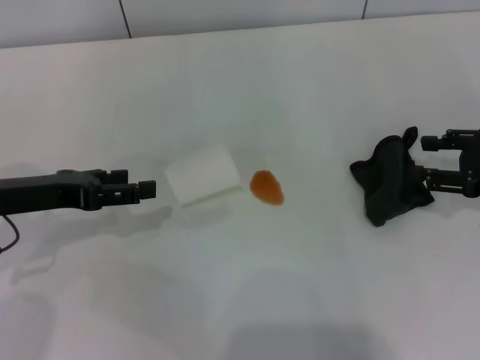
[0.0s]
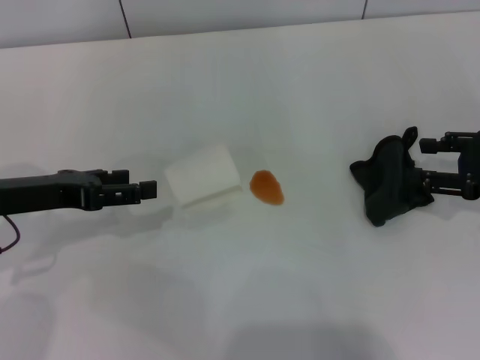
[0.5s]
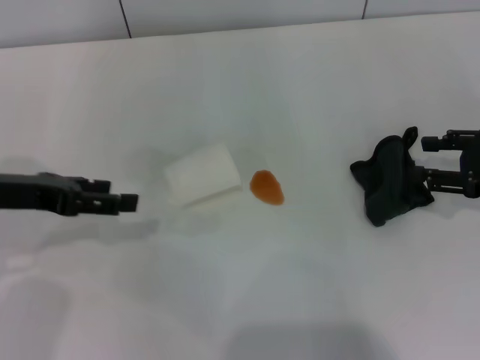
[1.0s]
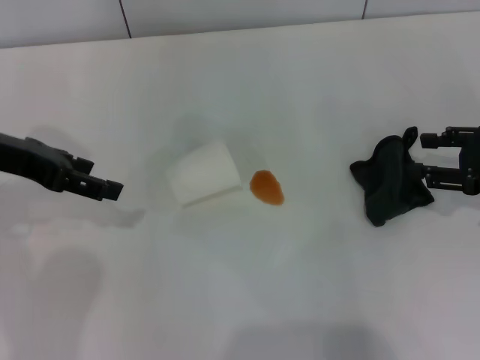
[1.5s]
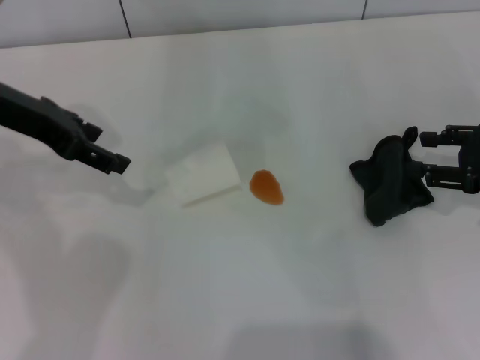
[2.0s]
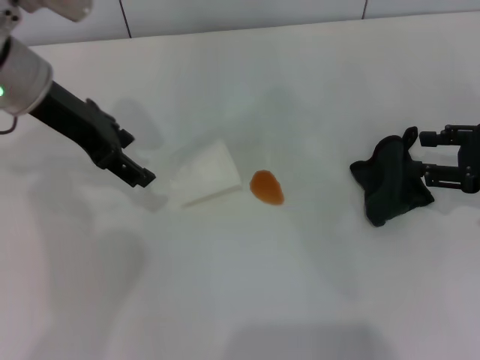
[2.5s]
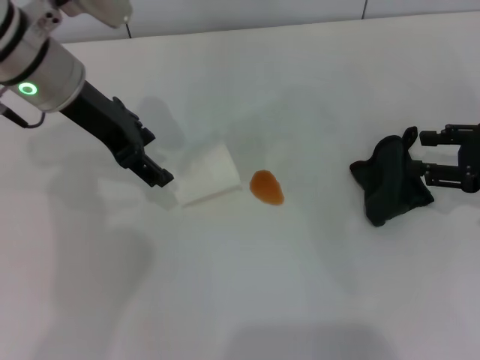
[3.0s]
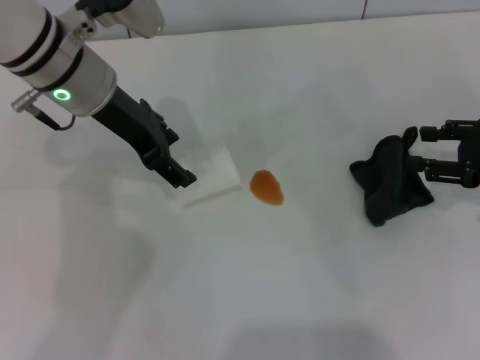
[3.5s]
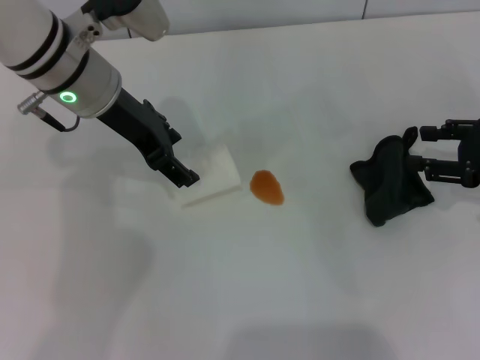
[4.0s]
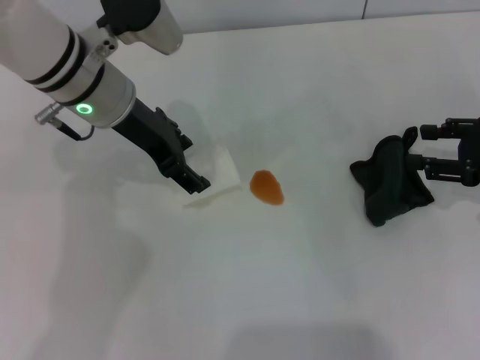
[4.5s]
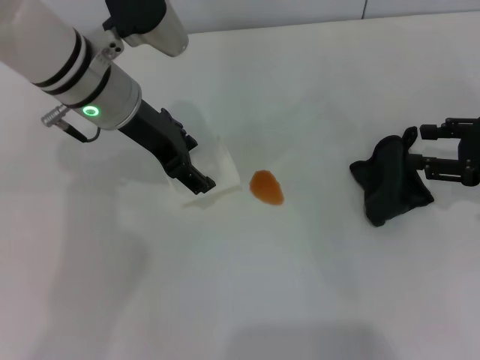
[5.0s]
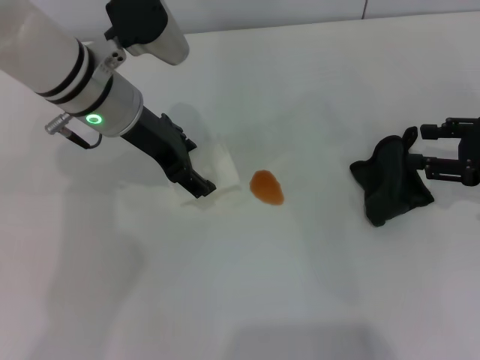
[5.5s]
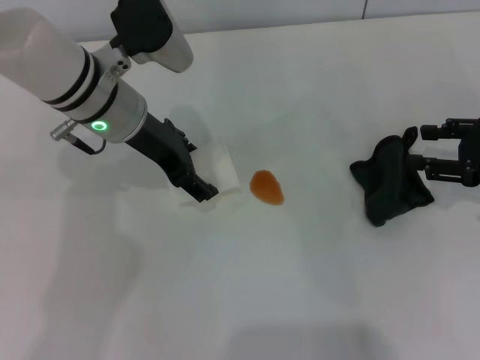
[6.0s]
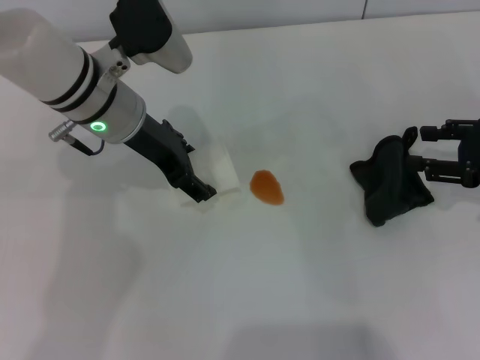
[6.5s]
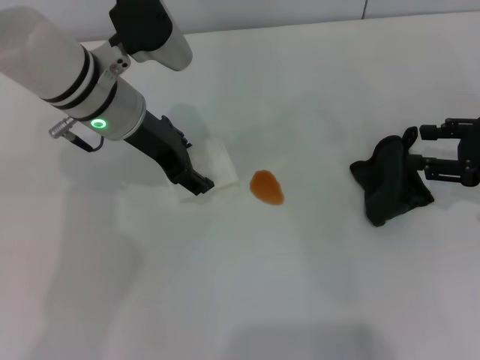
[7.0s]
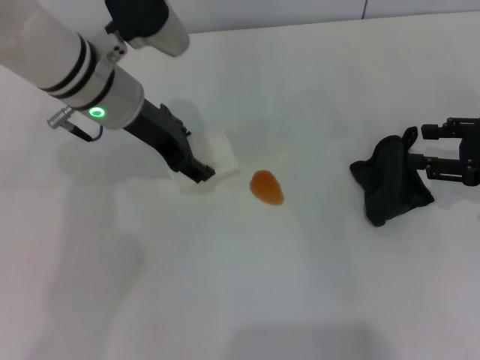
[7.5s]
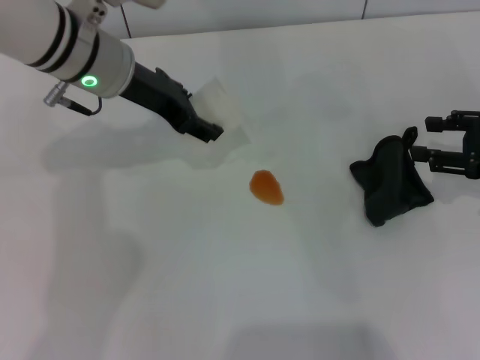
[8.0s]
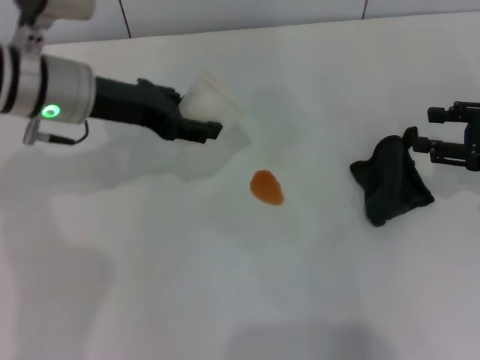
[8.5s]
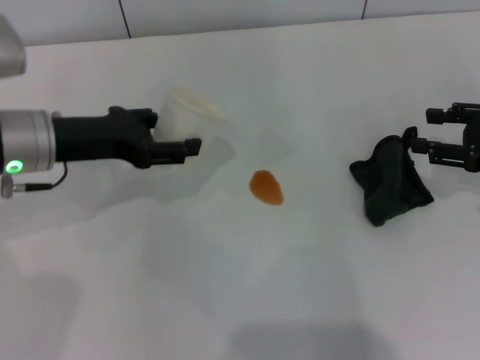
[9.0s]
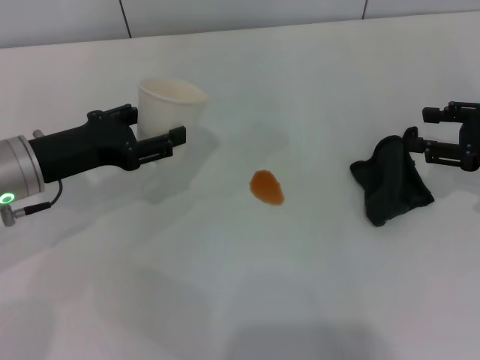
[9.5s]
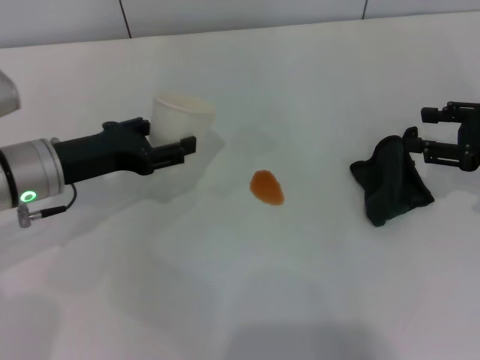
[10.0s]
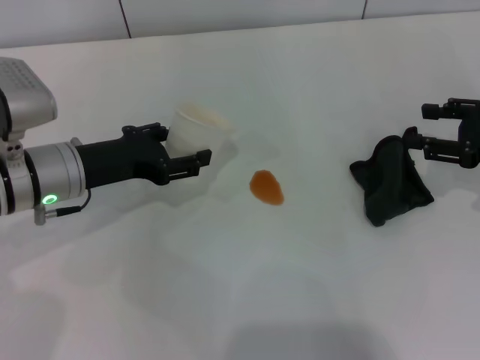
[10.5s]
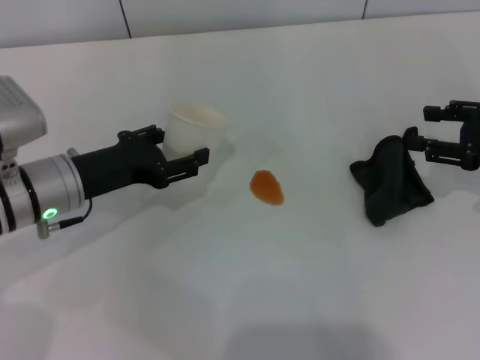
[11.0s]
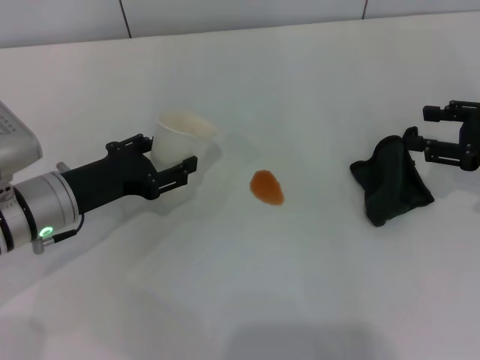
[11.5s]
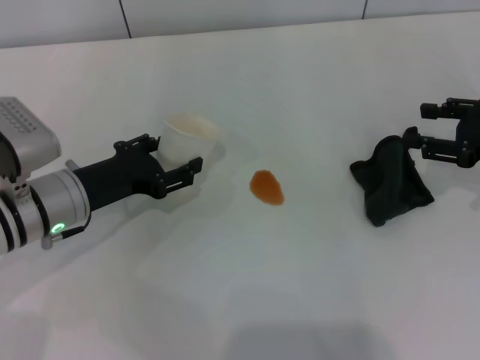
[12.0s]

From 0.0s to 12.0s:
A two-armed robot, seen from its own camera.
Step, from 0.0s to 6.5s: Grasp the paper cup with the left gripper.
From 0.0s to 2.0s: The left gripper shifts some 10 cm upward and forward.
From 2.0s to 4.0s: The left gripper travels to the right by some 10 cm.
From 4.0s to 6.0s: The grippers move only a little.
From 6.0s to 8.0s: The left gripper closes.
From 8.0s to 10.0s: The left gripper shifts some 15 cm to the left, downward and backward.
From 10.0s to 12.0s: The grippers move only a little.

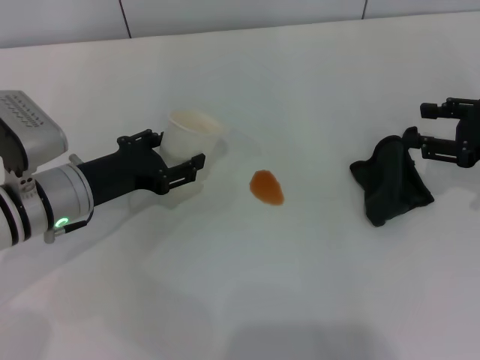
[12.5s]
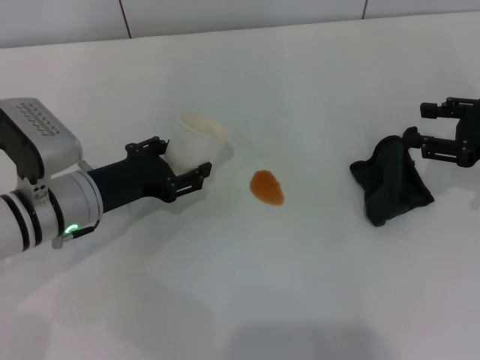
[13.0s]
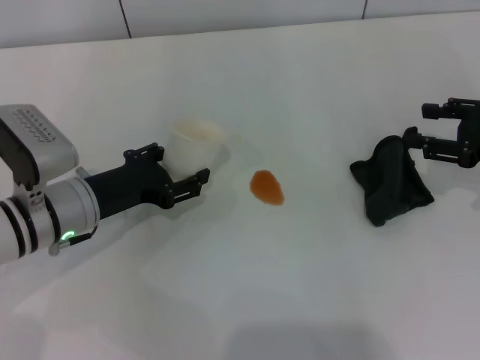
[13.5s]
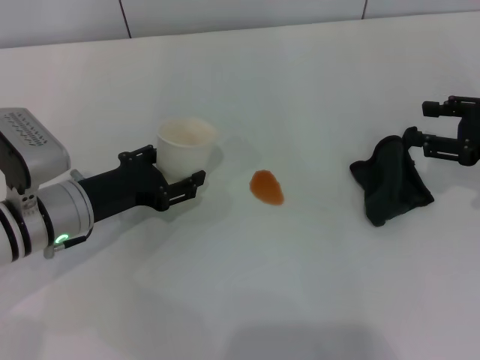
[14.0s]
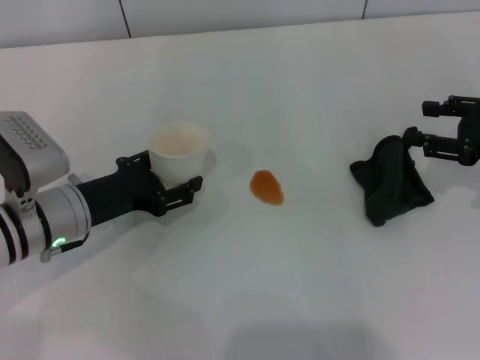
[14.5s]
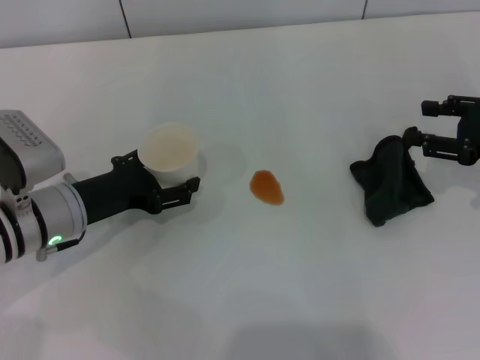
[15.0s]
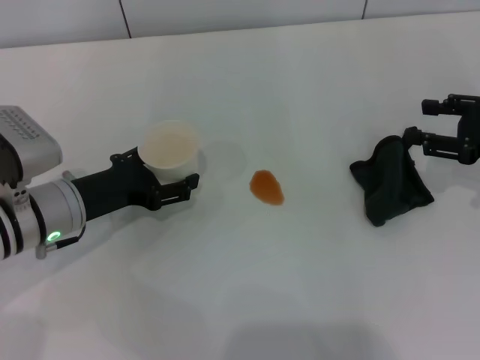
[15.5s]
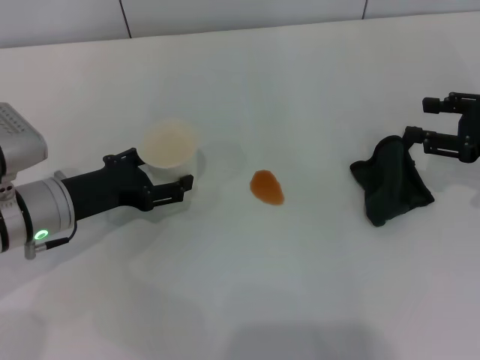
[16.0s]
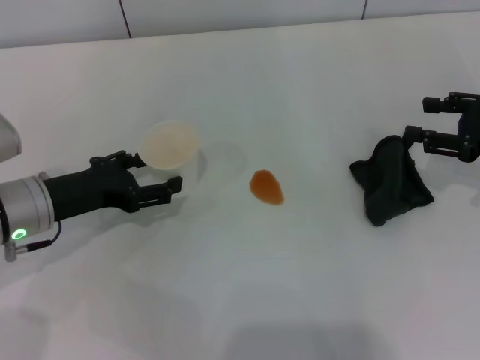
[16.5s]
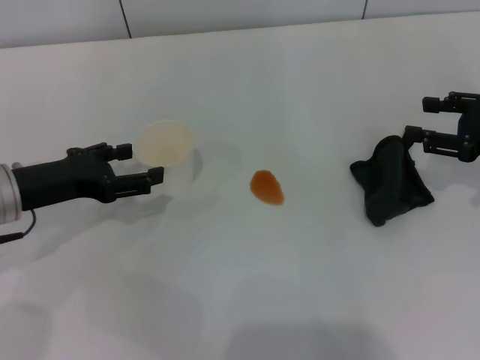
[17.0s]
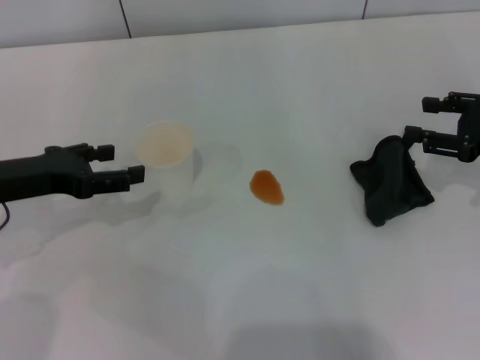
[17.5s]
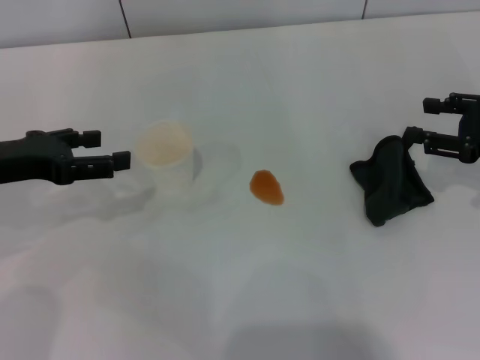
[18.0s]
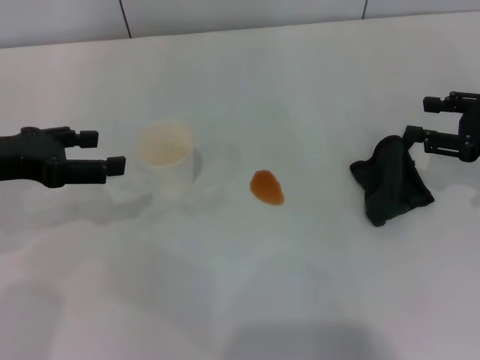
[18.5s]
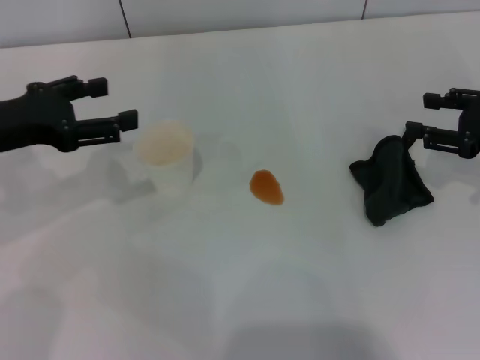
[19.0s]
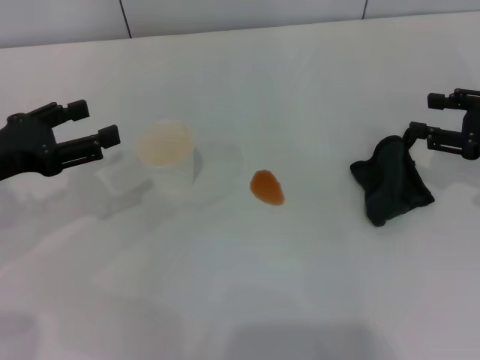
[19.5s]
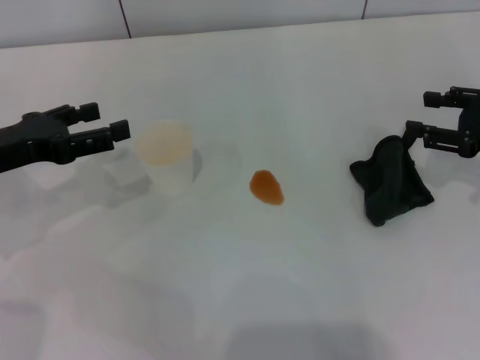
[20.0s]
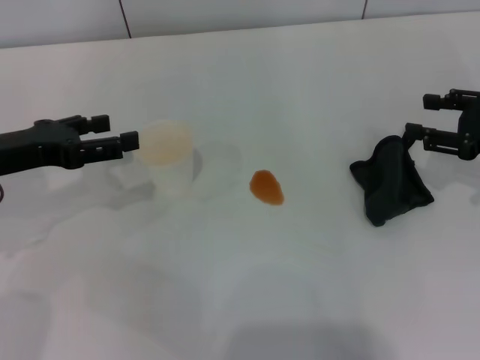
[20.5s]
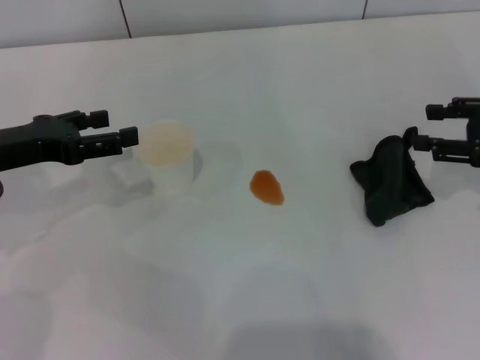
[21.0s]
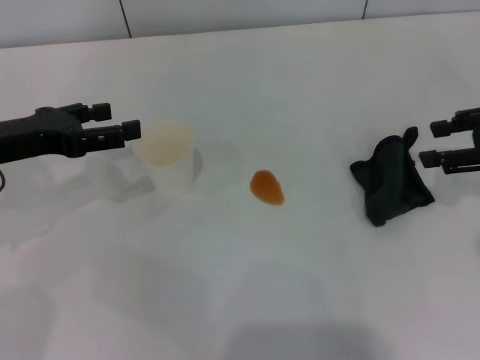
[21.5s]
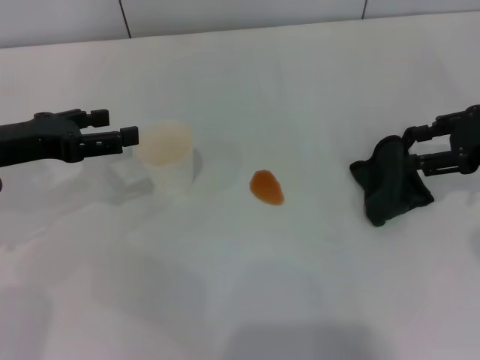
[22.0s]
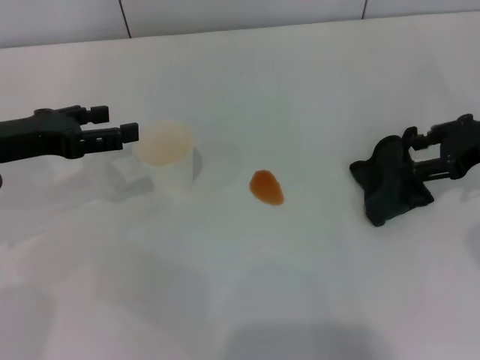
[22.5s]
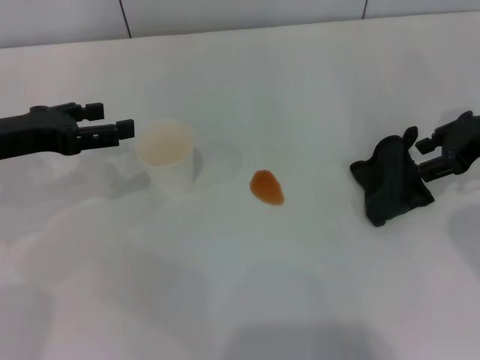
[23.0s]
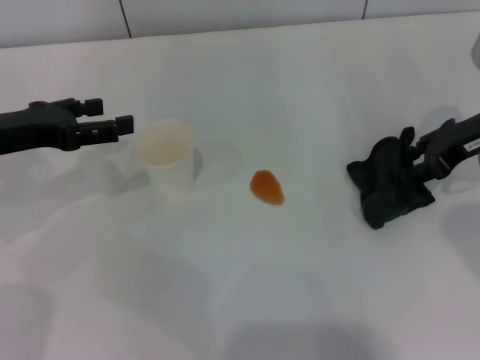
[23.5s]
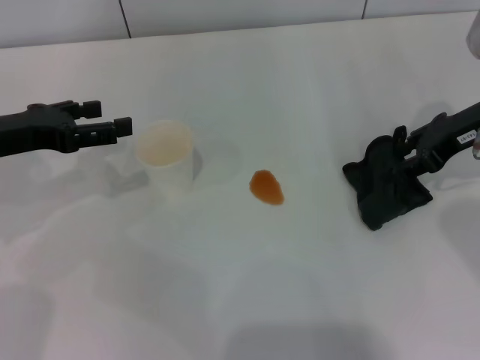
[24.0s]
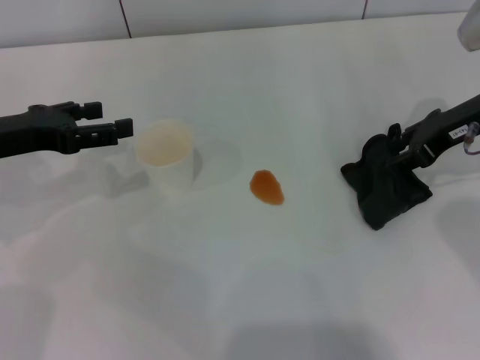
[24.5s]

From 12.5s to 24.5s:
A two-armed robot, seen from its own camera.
Step, from 12.5s to 17.0s: Stand the paper cup upright with the left gripper.
From 12.5s to 14.5s: The grippers move only a little.
From 14.5s to 16.5s: The left gripper opens its fingers.
From 16.5s to 18.5s: The left gripper moves upward and to the left, approximately 10 cm.
From 18.5s to 20.5s: There are only small adjustments of the grippers.
From 22.5s to 24.5s: The right gripper changes place by some 5 cm.

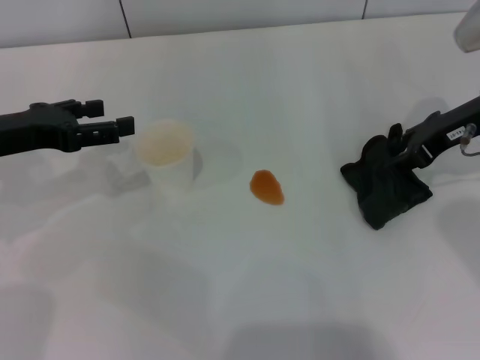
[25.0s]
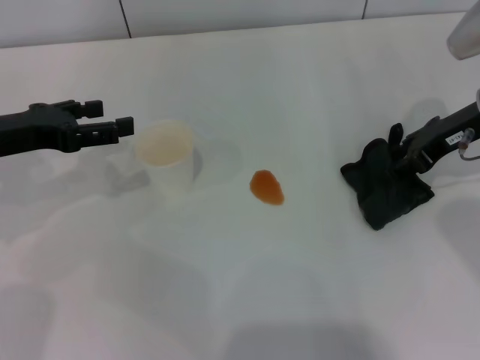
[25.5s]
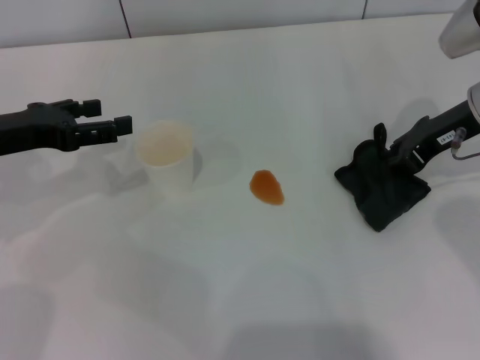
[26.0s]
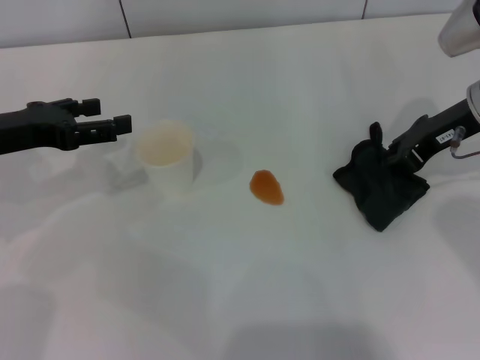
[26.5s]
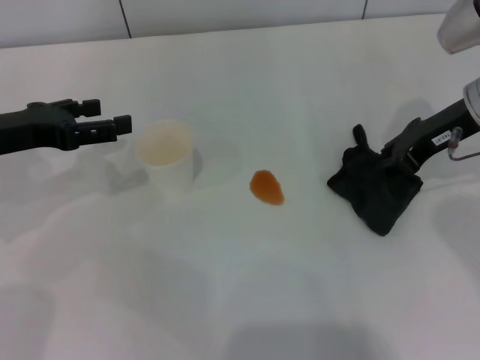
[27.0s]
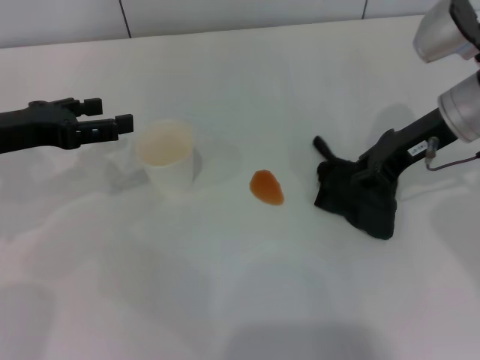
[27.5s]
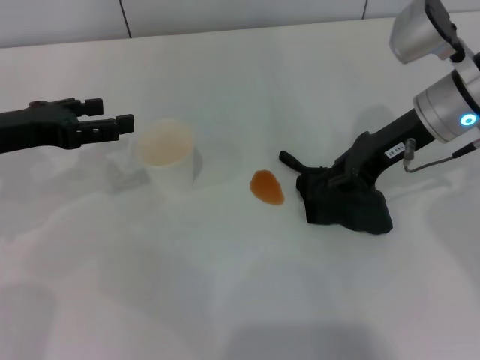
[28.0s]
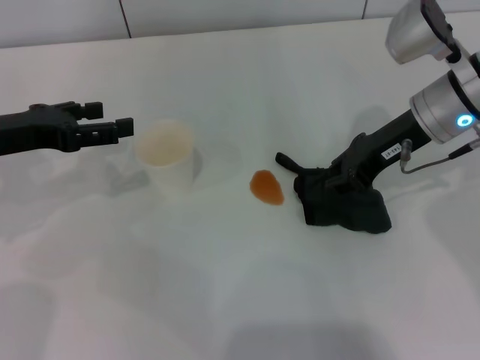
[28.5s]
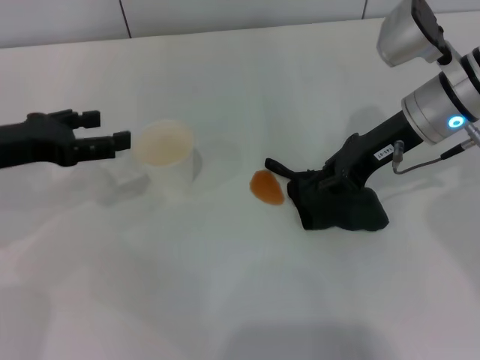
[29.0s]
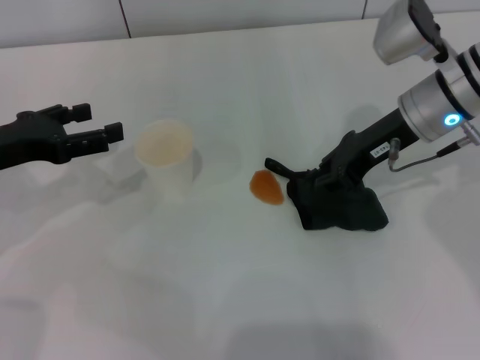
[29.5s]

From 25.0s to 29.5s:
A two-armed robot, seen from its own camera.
From 25.0s to 27.0s: The right gripper closes.
From 27.0s to 29.5s: The right gripper moves to the left, some 5 cm.
